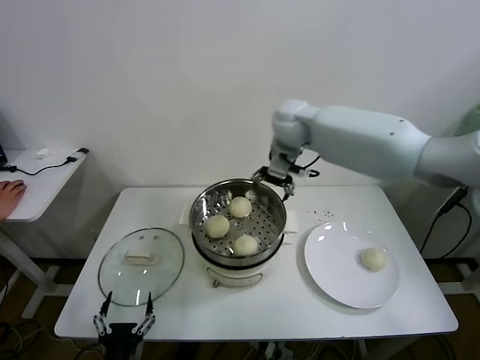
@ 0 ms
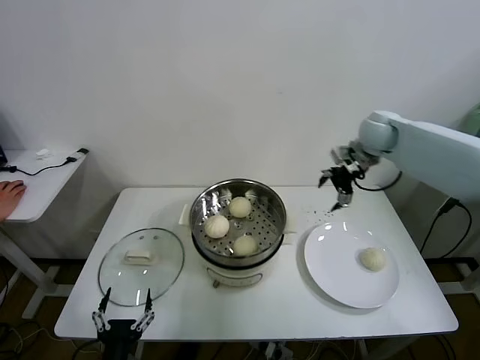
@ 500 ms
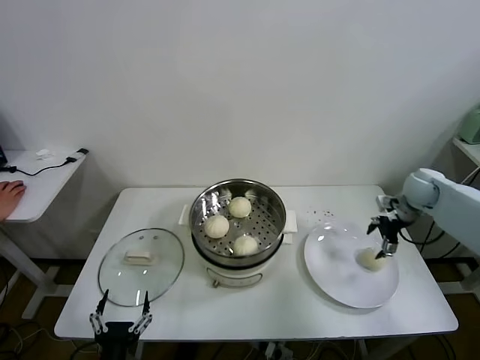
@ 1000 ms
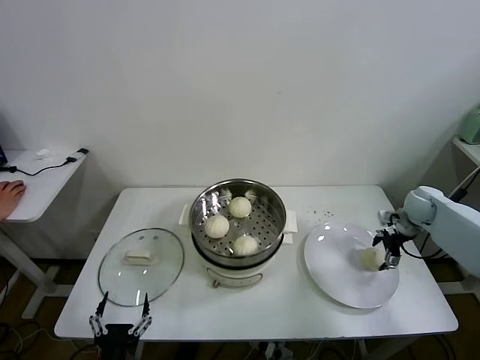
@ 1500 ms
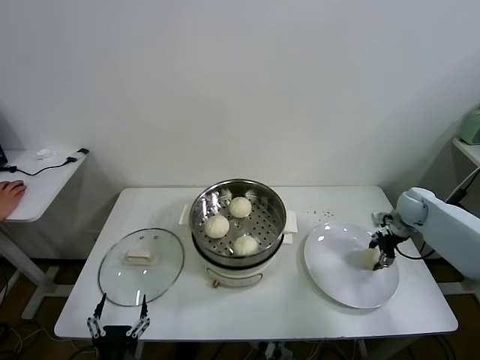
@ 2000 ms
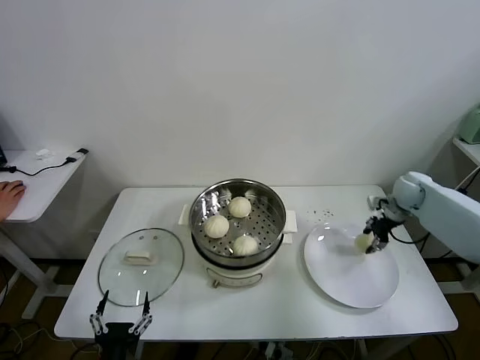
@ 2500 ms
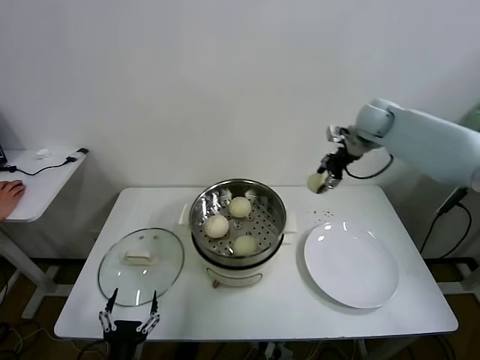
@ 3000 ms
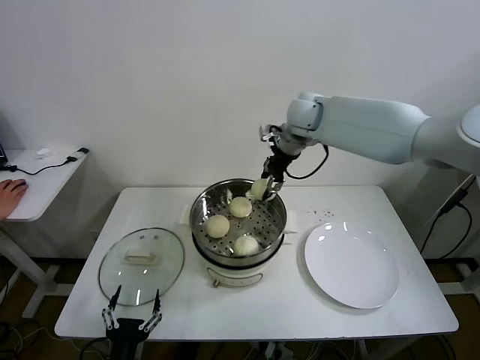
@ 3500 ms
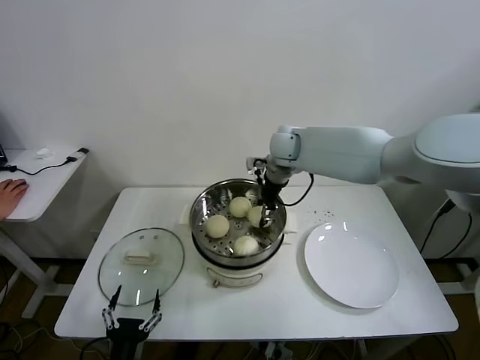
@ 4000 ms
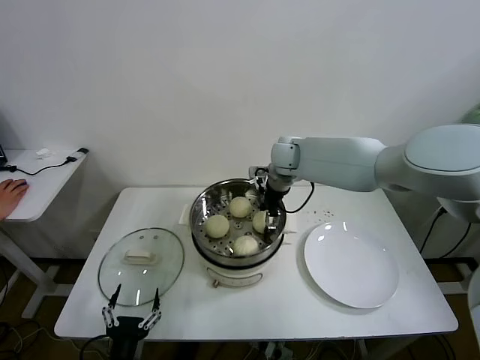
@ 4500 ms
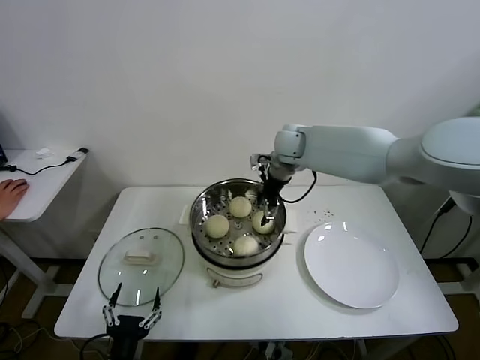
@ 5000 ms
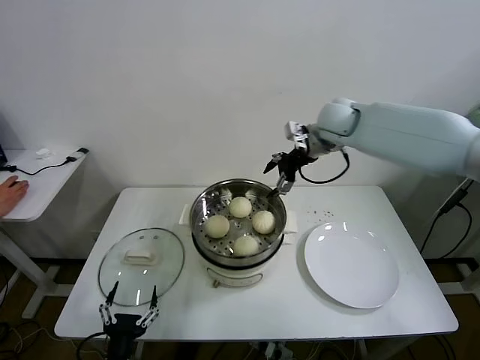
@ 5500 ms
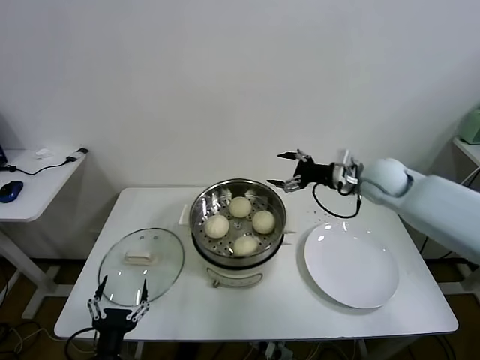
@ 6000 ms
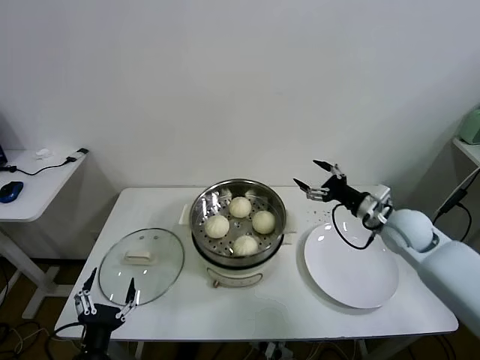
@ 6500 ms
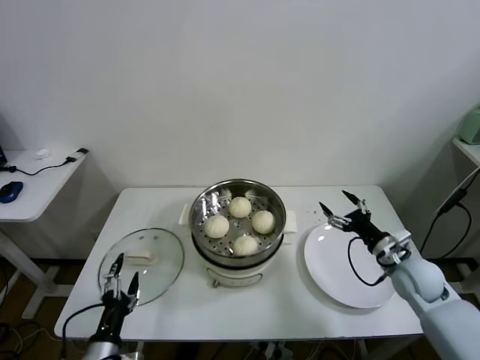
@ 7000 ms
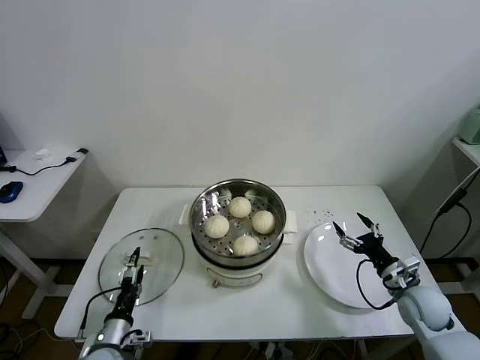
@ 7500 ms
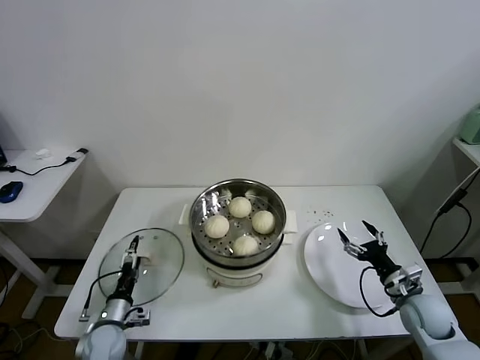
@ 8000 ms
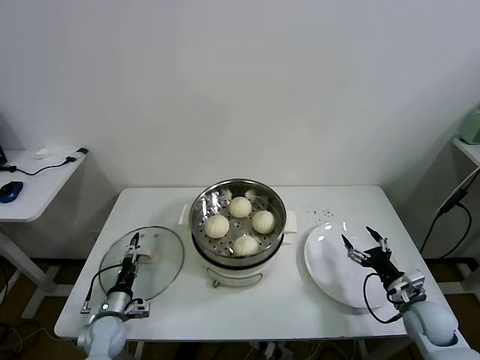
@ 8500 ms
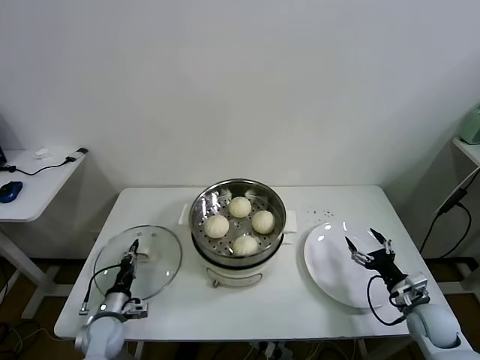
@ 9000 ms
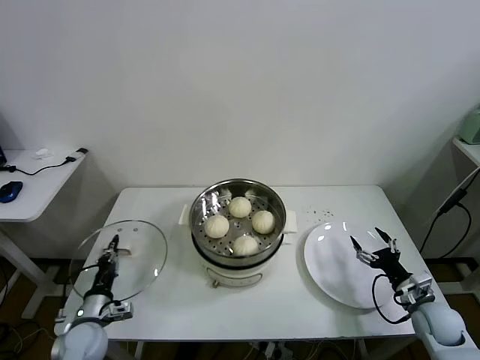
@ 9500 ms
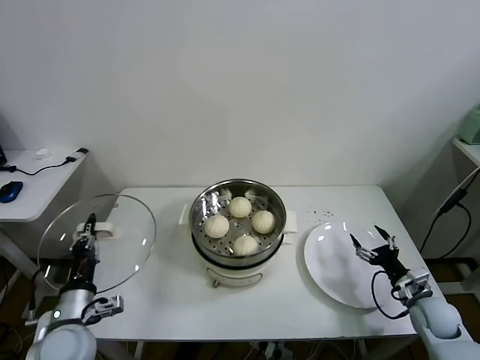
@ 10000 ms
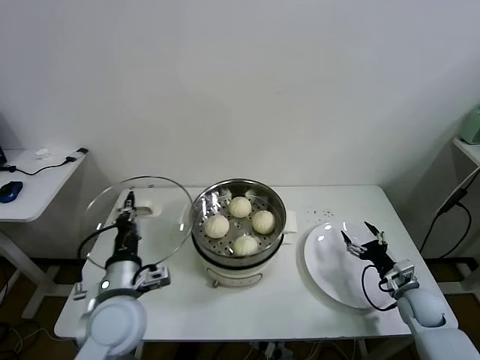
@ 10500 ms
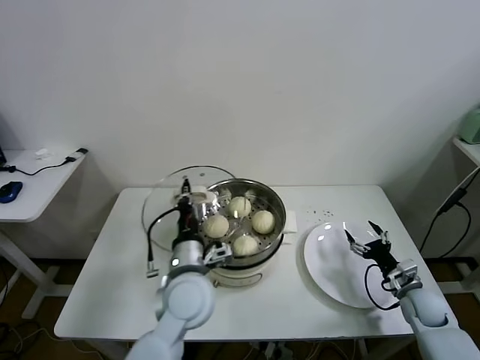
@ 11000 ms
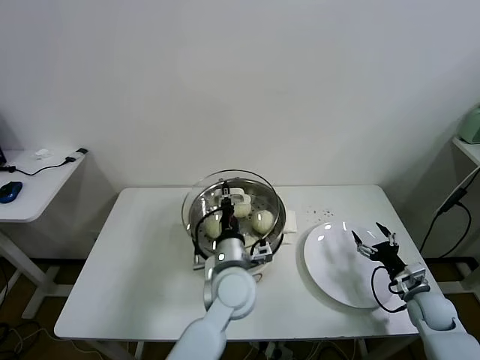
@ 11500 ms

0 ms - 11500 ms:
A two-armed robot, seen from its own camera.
Task of the whole recording: take steamed baozi put them in steamer.
Step, 0 ms - 2000 ms: Grasp the baozi in the plate with right gripper.
Step, 2500 ms - 4500 ms: Place the baozi on the steamer with right gripper.
Step, 5000 ms - 9000 ms: Grasp the pot lid with left gripper.
0 ms - 2000 ms: The right gripper shifts roughly 40 cm to the right and downward, and closes its fingers.
2000 ms - 4000 ms: The right gripper goes some 40 cm to the left and upward.
4000 ms - 6000 ms: The right gripper is displaced to the right and backward by some 25 cm, and opens.
6000 ms - 7500 ms: The right gripper heads downward, backward and to the right, covering approximately 30 cm; the left gripper moves forward and downward, approximately 10 cm.
7500 ms - 9500 ms: The left gripper is displaced forward by some 5 cm, and closes its fingers; the right gripper shifts by about 5 cm.
9500 ms - 11500 ms: The left gripper moves to the right and upward, some 35 cm.

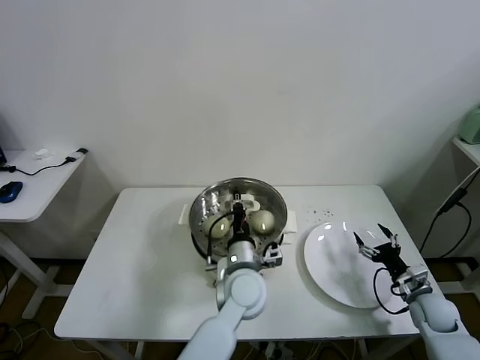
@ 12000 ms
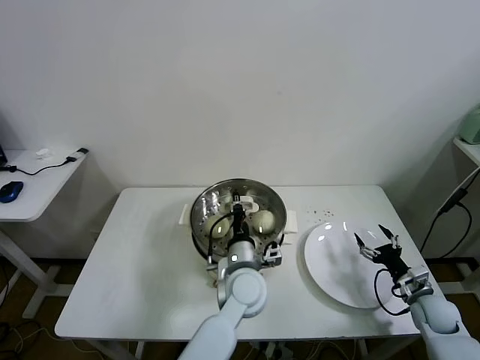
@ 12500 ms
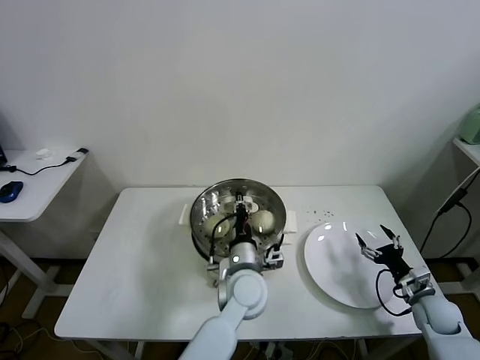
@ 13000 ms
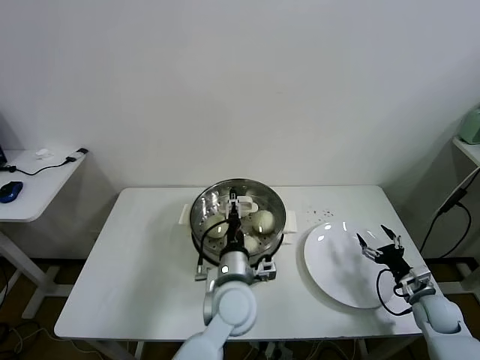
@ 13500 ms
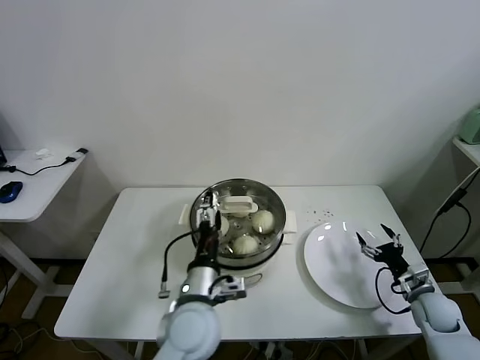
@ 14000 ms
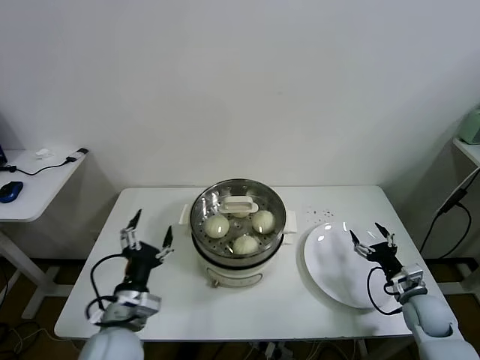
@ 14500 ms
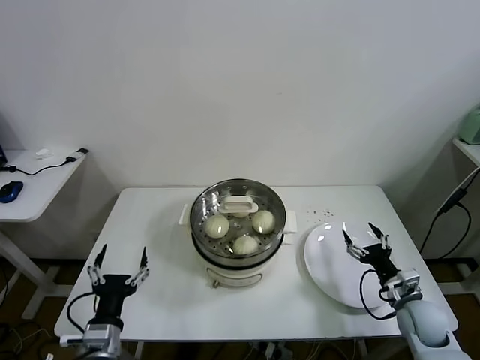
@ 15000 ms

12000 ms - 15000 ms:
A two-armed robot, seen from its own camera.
Task of the whole recording: take steamed baozi put them in steamer.
12000 ms - 13500 ms: The left gripper opens.
13500 ms - 15000 ms: The right gripper goes roughly 5 cm to the left; the left gripper shifts about 30 cm to the left and backward.

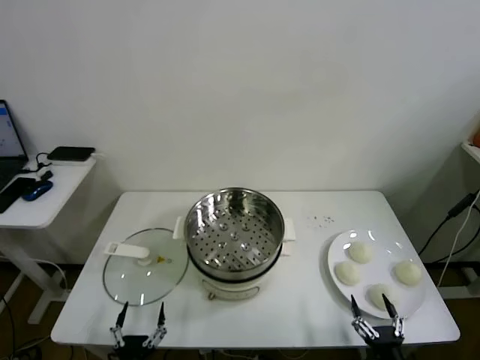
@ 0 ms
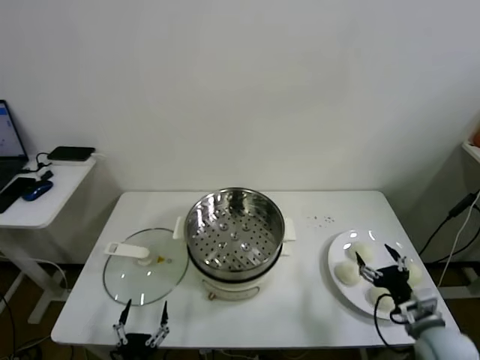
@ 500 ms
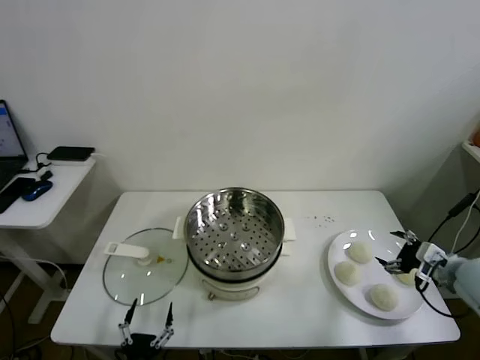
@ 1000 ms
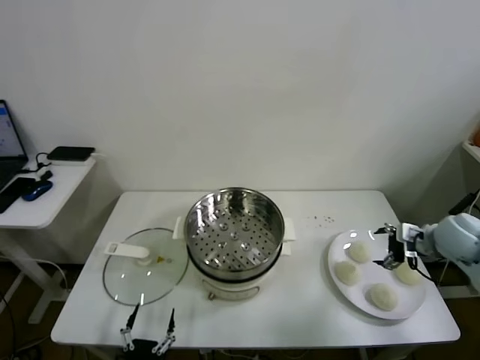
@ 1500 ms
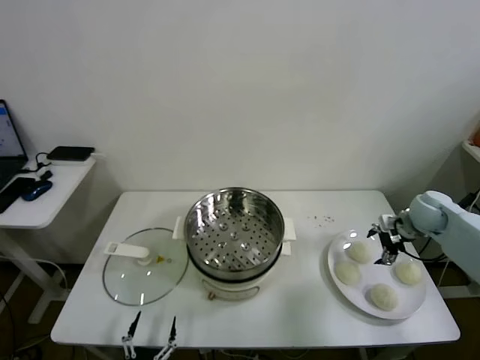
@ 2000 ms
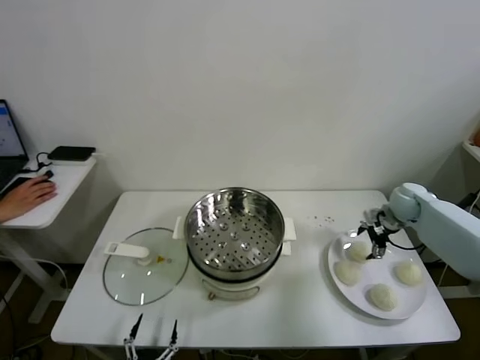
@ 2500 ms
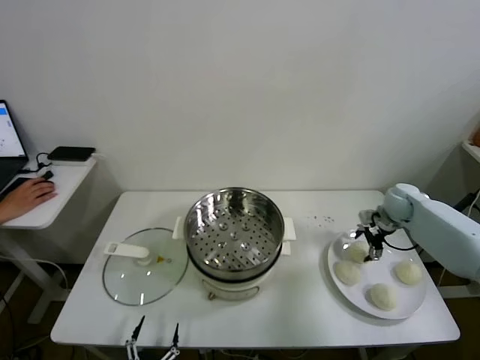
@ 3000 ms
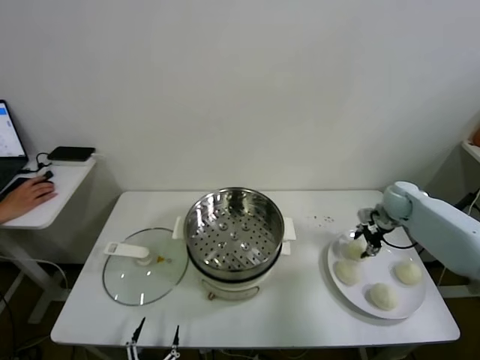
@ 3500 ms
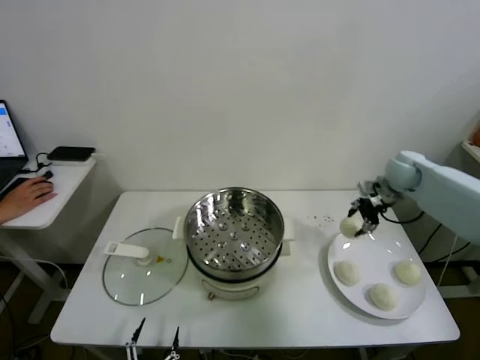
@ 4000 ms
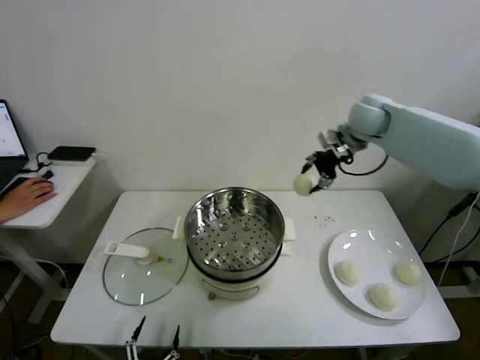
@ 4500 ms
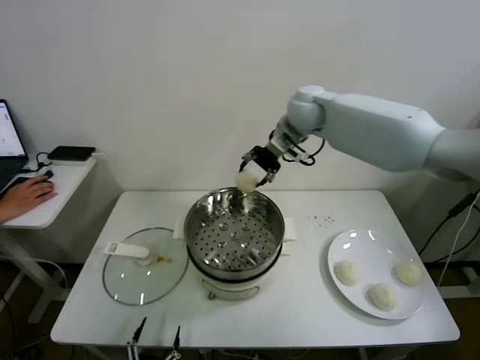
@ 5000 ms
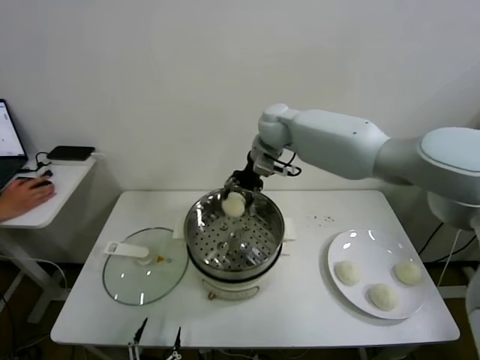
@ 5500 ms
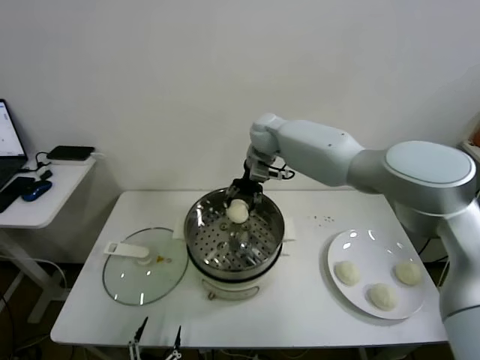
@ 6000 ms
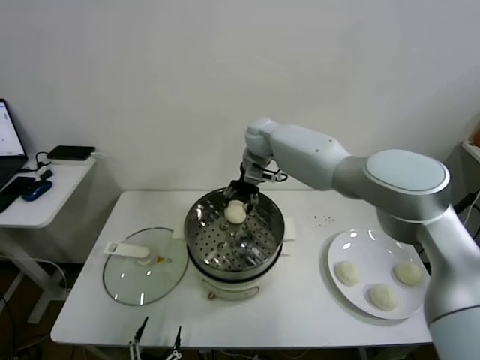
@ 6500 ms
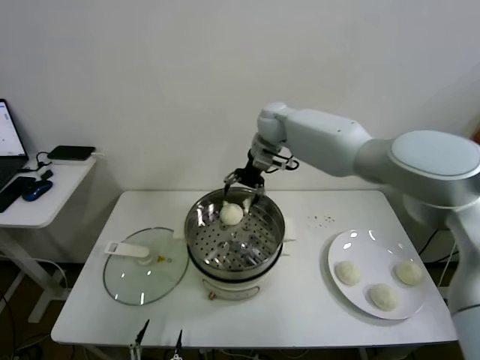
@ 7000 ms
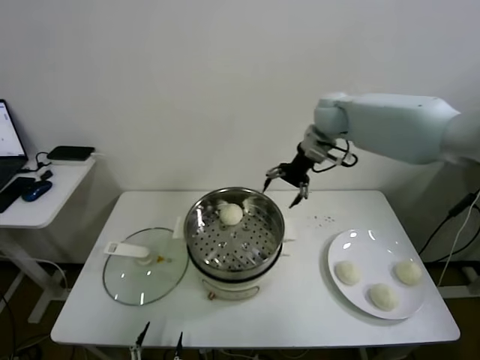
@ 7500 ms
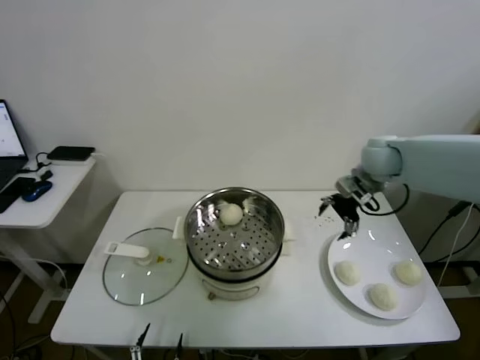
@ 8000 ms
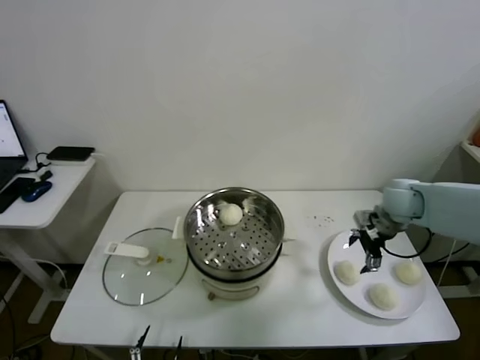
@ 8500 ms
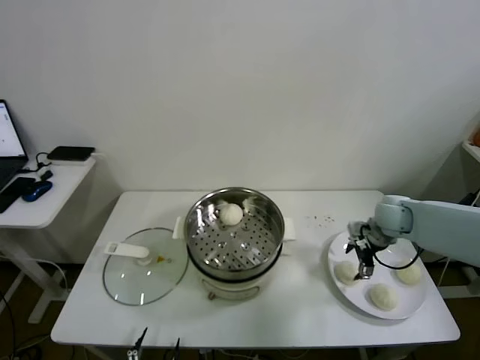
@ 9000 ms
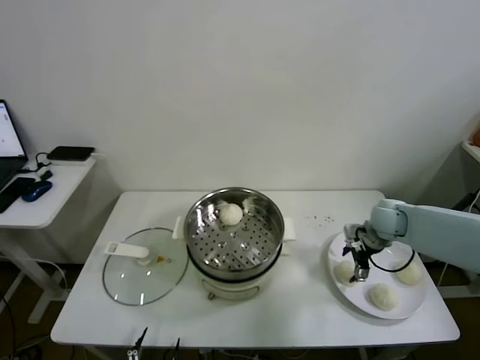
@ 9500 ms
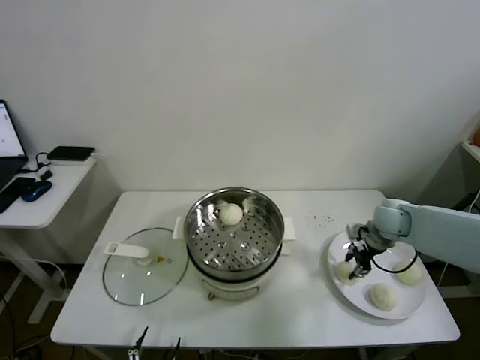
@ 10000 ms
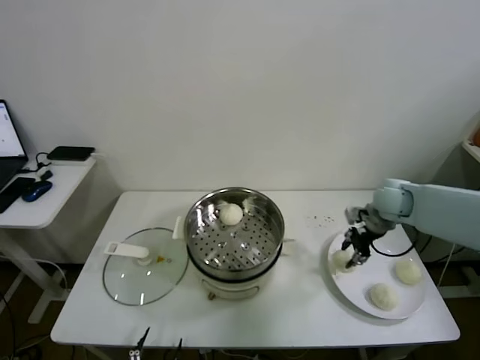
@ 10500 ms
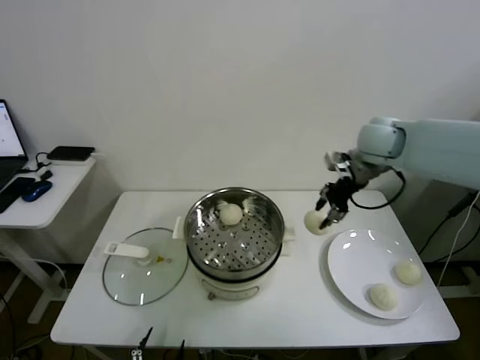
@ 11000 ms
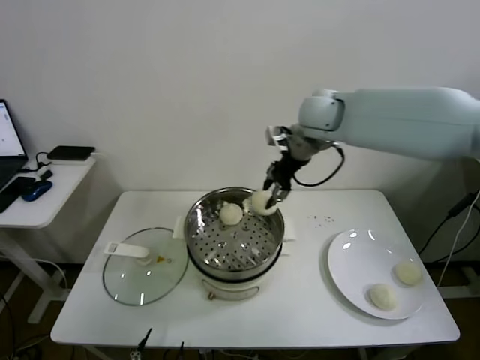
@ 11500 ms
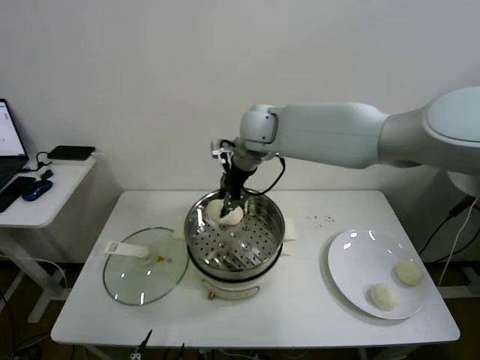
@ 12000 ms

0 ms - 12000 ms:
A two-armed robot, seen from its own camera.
Task of the whole recording: take steamed baozi put them in steamer.
Step, 0 ms - 3000 ms: Grasp the baozi in the plate with right gripper.
Step, 3500 ms - 6500 ms: Place the baozi on the steamer with right gripper.
Step, 7000 ms - 10000 ms: Grasp the baozi in the plate with right gripper.
2000 ms - 4000 ms: The right gripper moves upward, forward and to the left, roughly 10 cm, and closes up.
4000 ms - 6000 ms: The right gripper travels to the left by approximately 35 cm.
6000 ms - 8000 ms: The right gripper moves to the right, some 25 cm, and opens up.
8000 ms - 10000 ms: The right gripper is displaced downward by approximately 15 cm, and closes.
10000 ms - 12000 ms: The right gripper goes some 40 cm to the left and upward.
